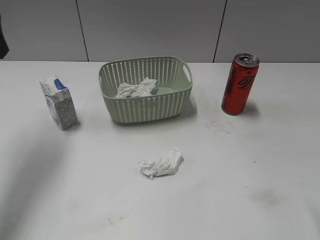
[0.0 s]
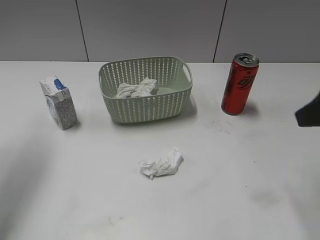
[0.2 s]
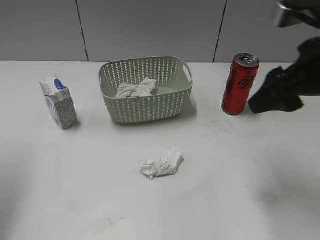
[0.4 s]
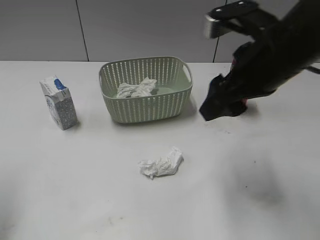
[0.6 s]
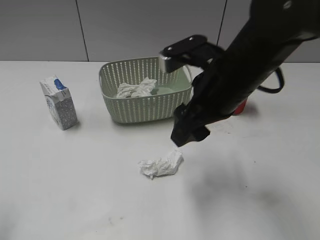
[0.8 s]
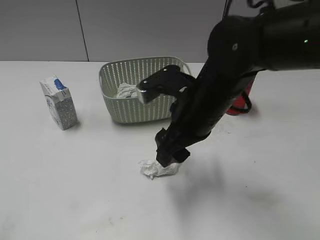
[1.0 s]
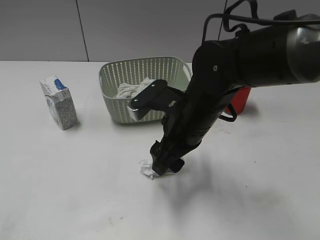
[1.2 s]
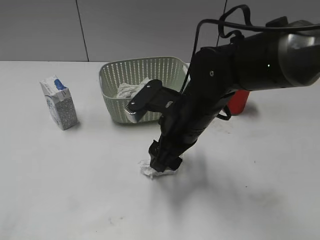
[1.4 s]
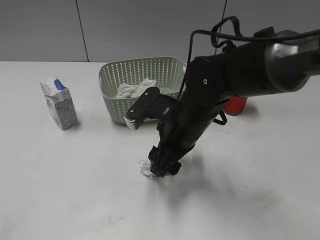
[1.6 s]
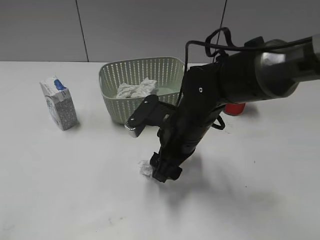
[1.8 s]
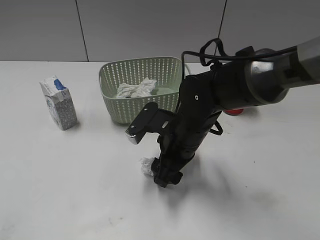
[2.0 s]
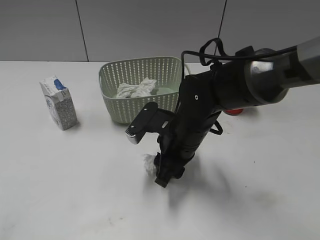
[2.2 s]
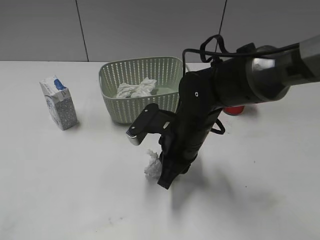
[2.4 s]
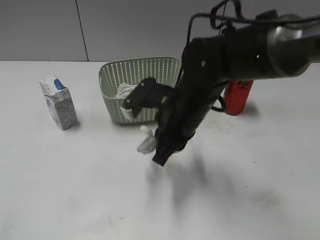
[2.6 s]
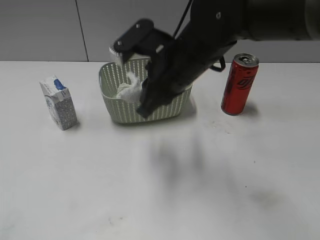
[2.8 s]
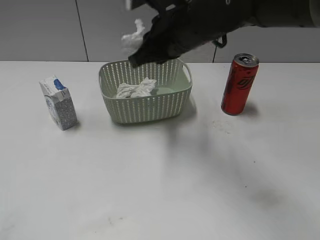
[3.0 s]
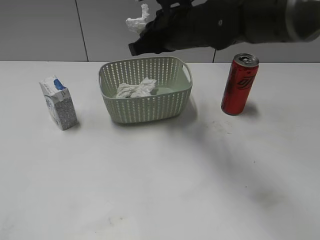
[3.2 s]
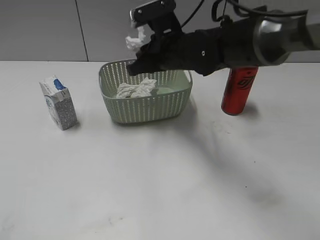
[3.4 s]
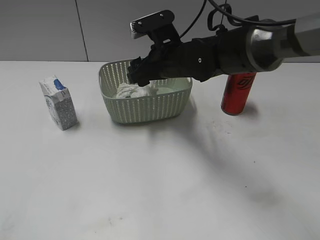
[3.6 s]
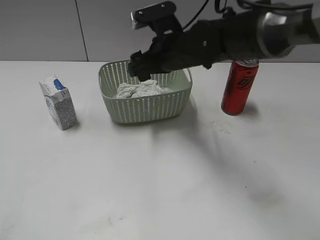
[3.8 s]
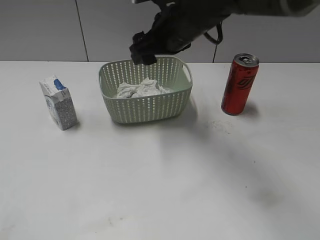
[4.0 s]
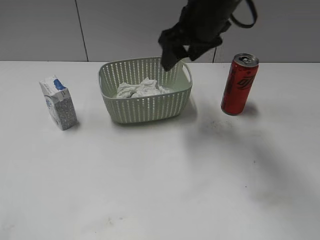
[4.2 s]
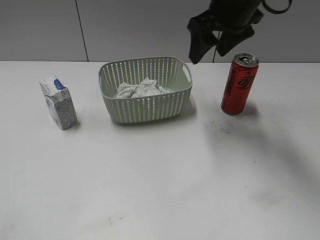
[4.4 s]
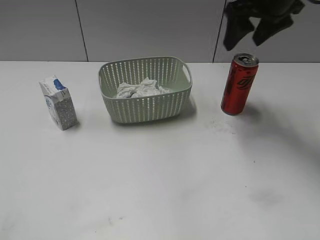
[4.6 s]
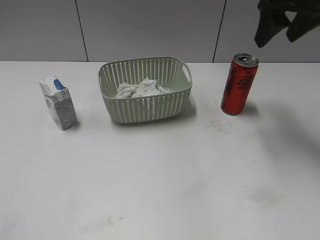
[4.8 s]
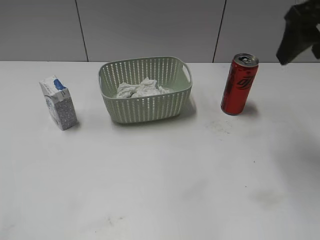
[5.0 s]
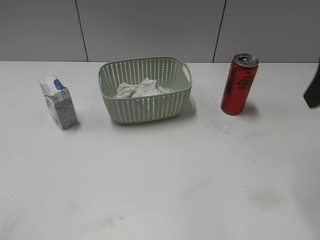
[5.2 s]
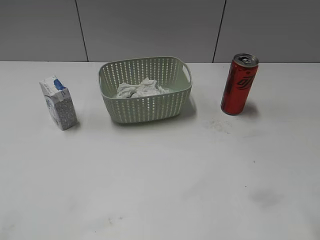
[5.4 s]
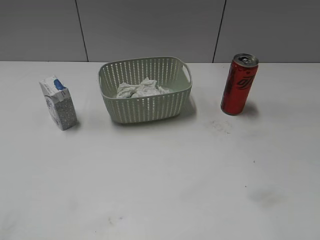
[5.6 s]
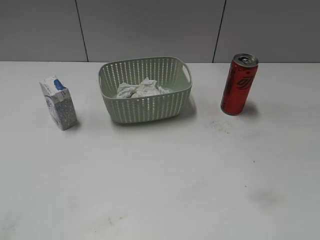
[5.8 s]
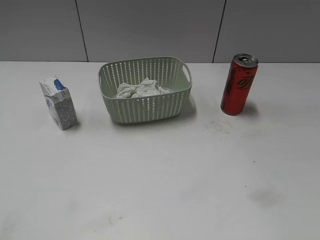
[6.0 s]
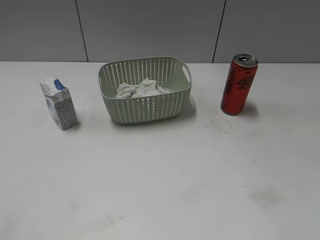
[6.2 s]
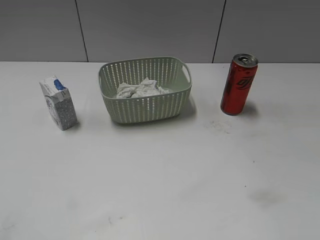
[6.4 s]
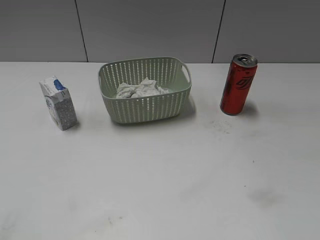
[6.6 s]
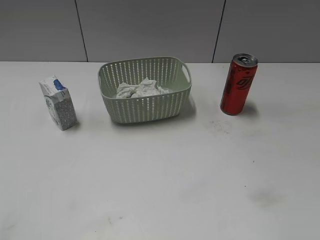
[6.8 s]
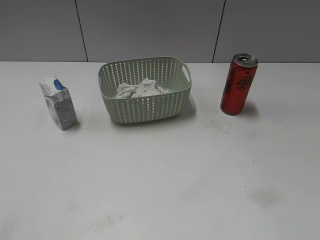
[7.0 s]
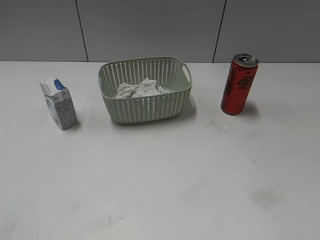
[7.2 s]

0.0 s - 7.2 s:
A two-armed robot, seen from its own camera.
Step, 0.0 s - 2.4 s: Grasp the waste paper with right gripper.
Step, 2.6 s - 3.8 s: Place the waste paper in the basket with right gripper.
0.0 s - 1.4 s: The left gripper travels backward by about 30 cm. The right gripper is displaced to the left and downward by approximately 25 cm.
1.4 s - 2.8 s: The right gripper heads upward and forward, covering about 10 cm, and closes its fingers.
2.8 s - 4.4 s: The right gripper shifts some 15 cm to the right, forward and upward, and opens up.
4.4 s - 5.8 s: The right gripper travels backward by roughly 35 cm.
